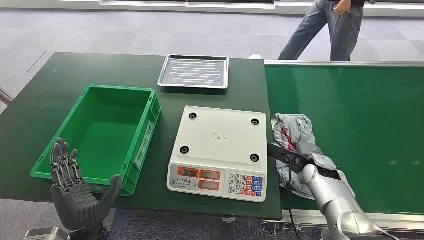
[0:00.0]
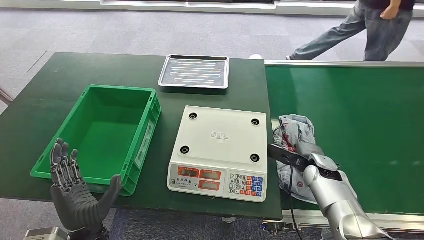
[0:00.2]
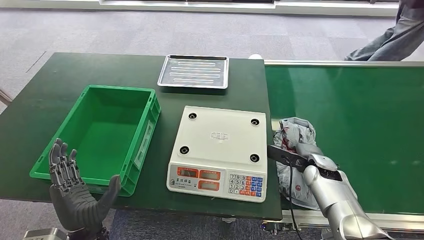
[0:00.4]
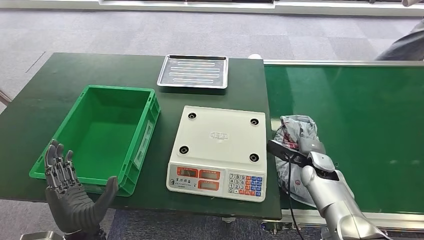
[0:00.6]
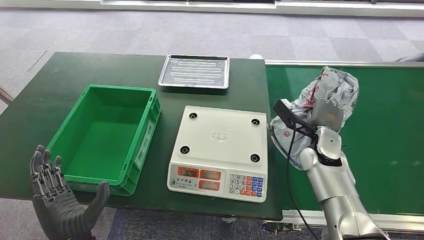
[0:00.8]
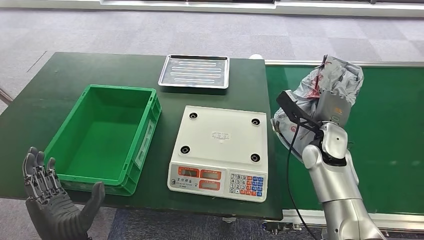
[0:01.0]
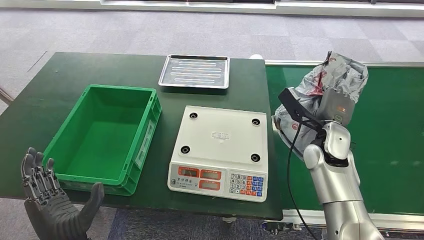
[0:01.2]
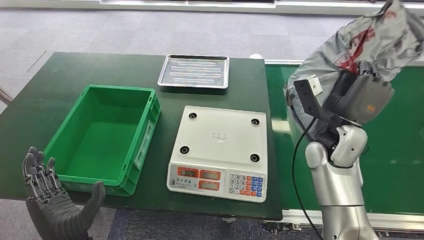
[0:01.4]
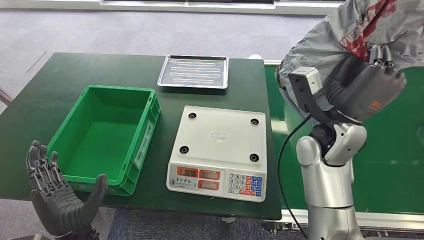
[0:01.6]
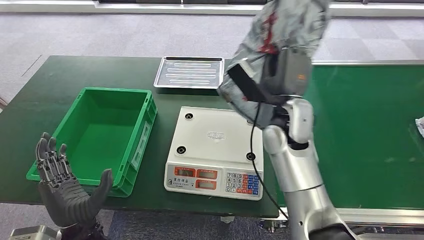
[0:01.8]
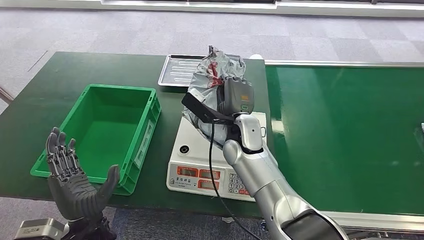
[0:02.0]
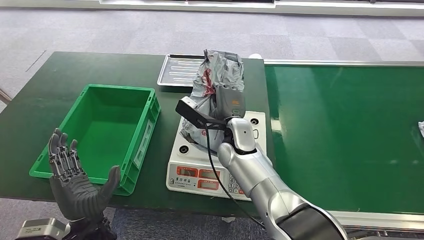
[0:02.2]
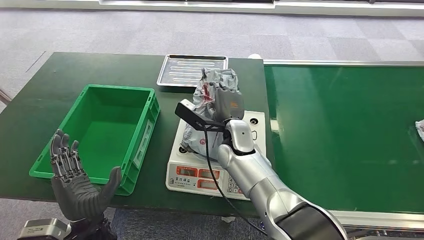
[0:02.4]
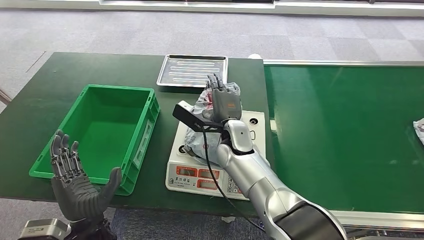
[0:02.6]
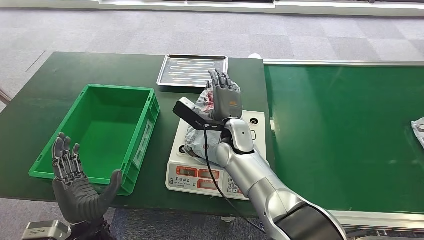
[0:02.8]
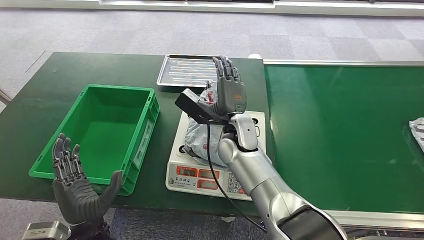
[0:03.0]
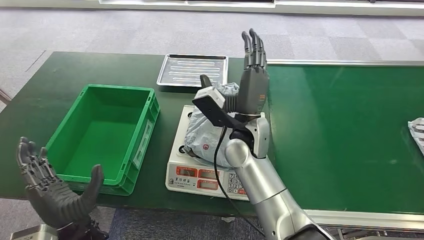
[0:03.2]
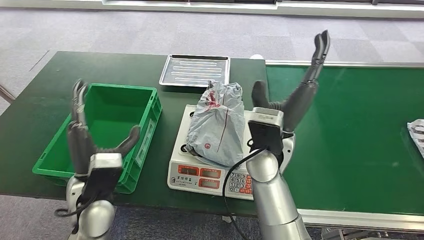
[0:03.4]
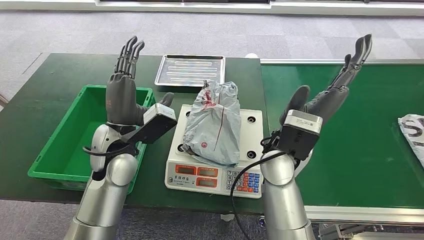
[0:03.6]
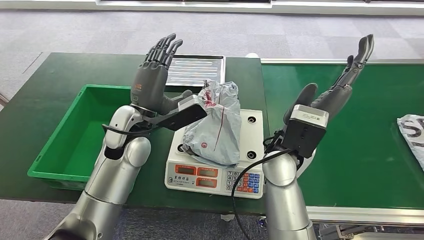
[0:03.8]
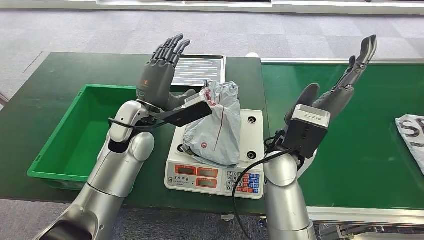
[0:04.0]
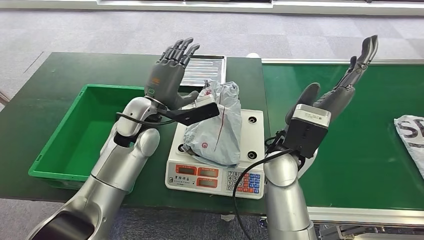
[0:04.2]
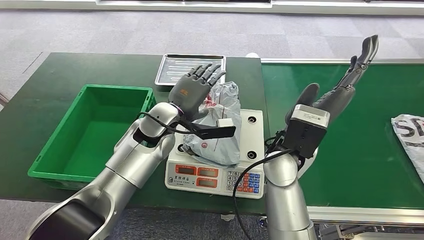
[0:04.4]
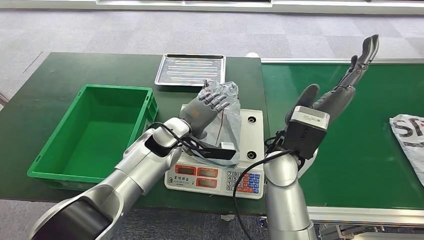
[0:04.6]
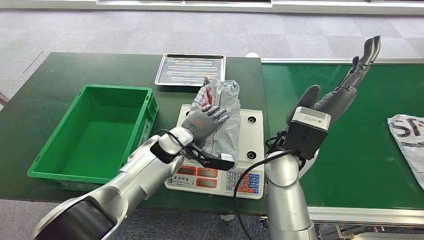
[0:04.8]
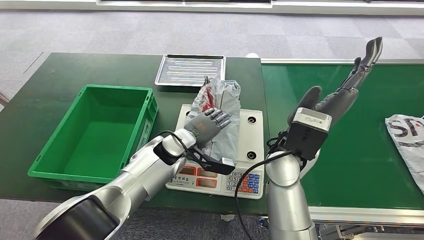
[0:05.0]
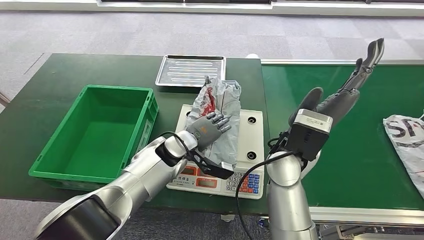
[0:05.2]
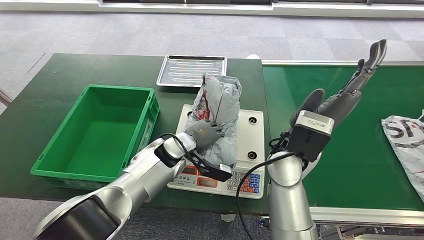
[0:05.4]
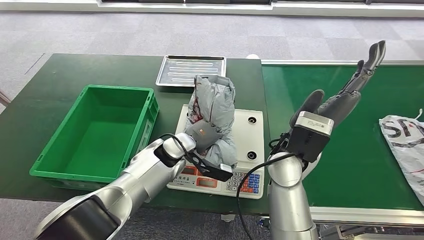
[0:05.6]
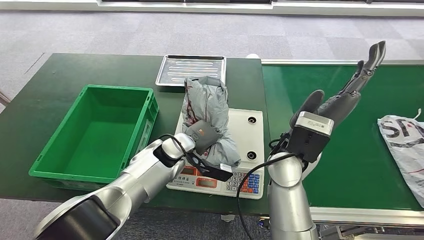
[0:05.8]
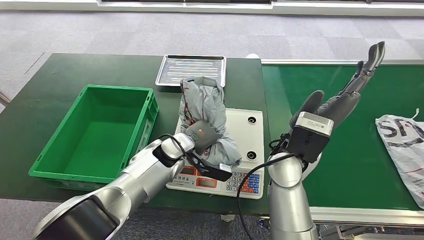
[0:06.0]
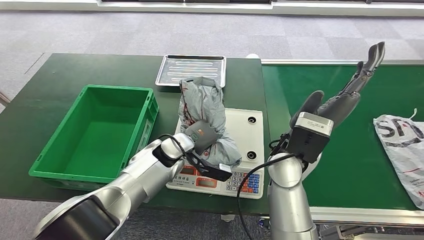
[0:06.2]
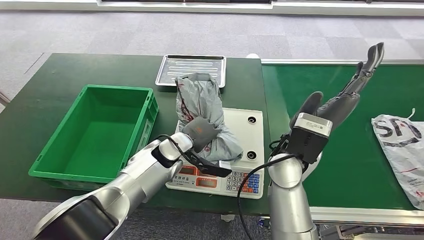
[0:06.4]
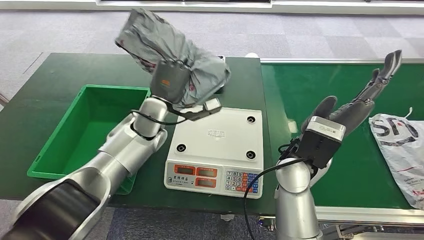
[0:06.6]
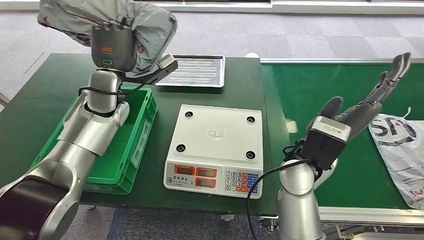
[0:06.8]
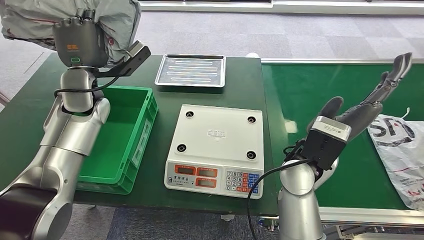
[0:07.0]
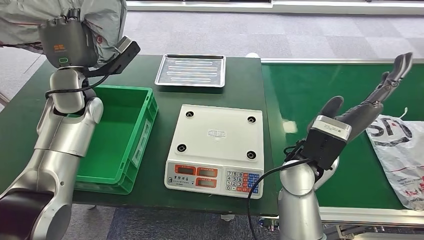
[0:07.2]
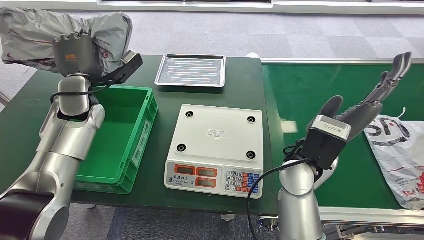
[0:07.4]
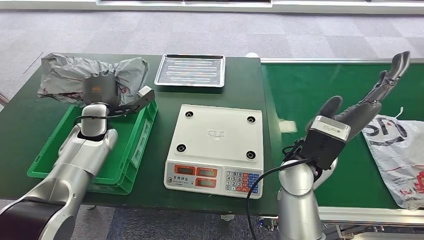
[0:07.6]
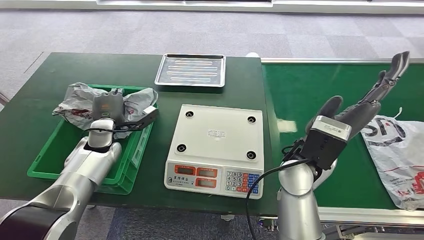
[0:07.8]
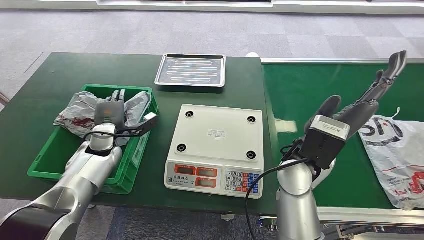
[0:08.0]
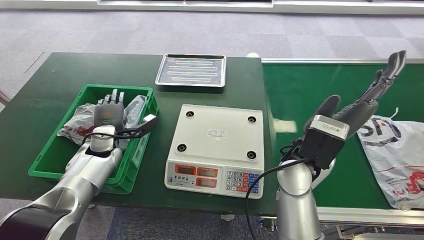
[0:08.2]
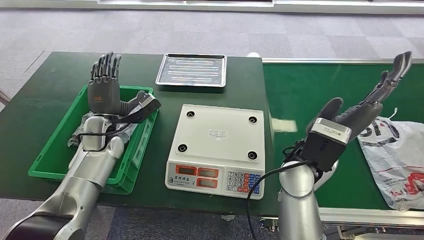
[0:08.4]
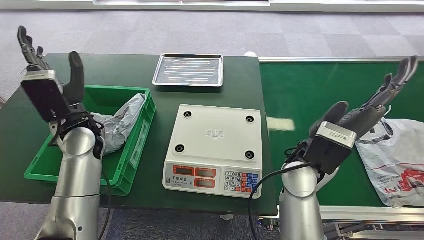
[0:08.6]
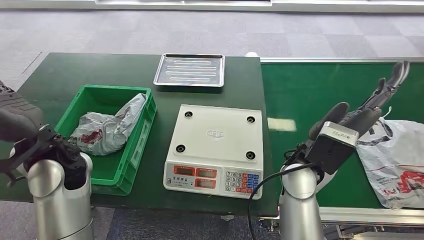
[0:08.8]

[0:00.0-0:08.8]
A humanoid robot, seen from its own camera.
Step, 0:00.0 to 0:01.0: Pick up the package from the conveyor belt.
Step, 0:01.2 to 0:03.2: Place the package onto the inbound machine.
Step, 0:03.8 to 0:07.0: Pick up the package from the inbound machine.
Step, 0:07.2 to 0:08.6: Place the package into the parcel locker.
